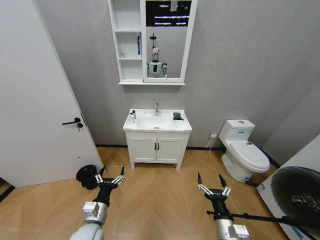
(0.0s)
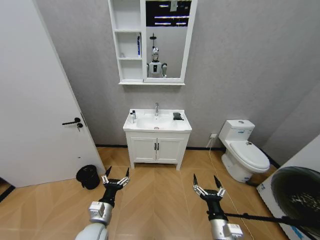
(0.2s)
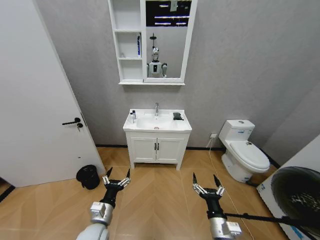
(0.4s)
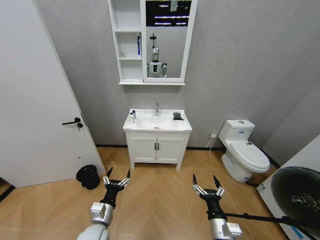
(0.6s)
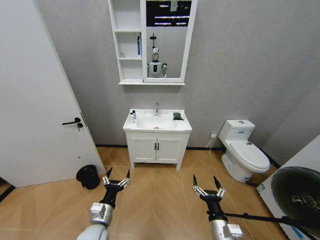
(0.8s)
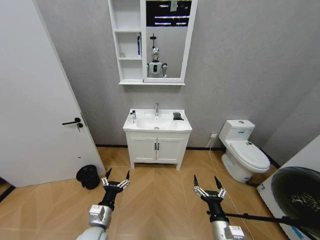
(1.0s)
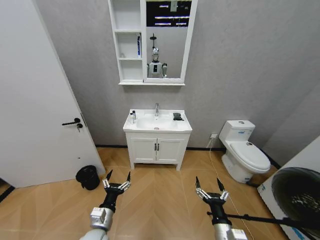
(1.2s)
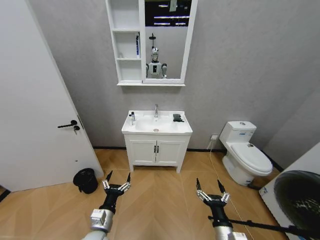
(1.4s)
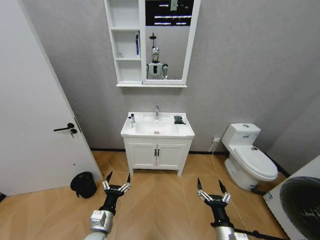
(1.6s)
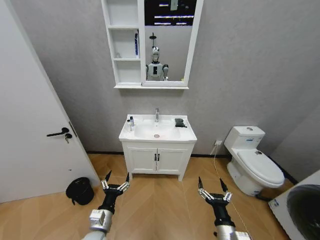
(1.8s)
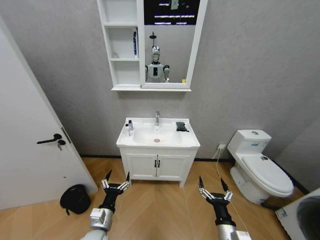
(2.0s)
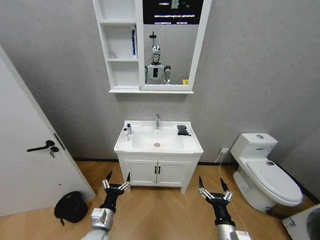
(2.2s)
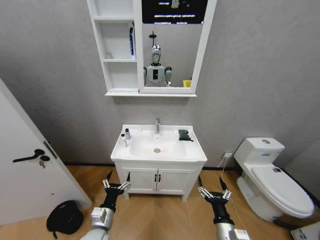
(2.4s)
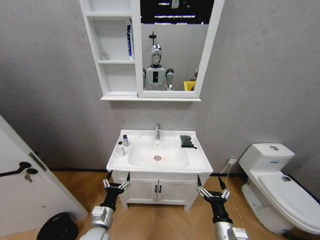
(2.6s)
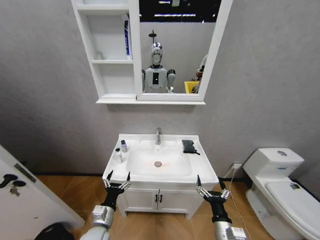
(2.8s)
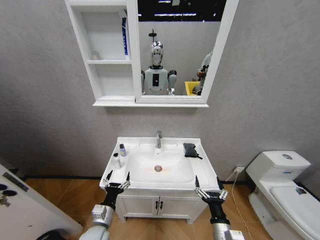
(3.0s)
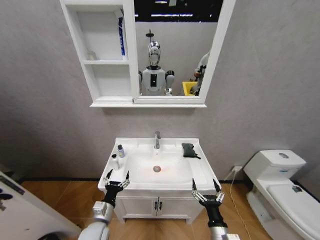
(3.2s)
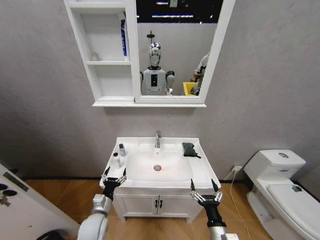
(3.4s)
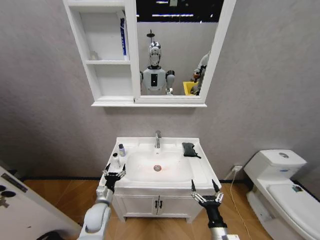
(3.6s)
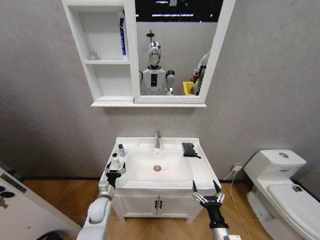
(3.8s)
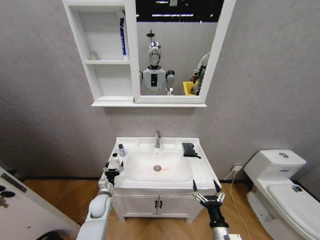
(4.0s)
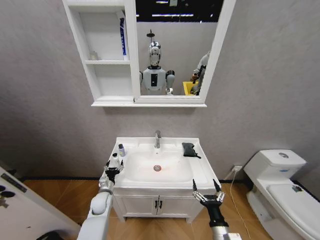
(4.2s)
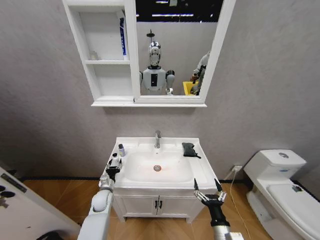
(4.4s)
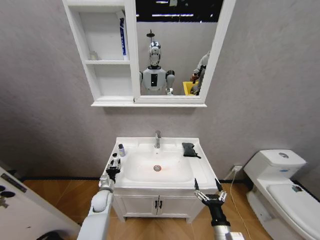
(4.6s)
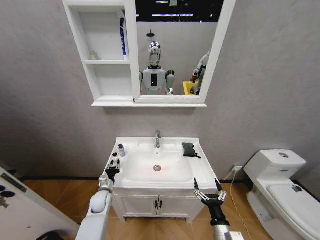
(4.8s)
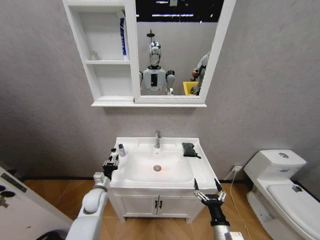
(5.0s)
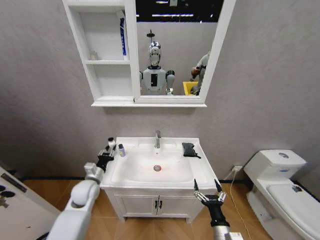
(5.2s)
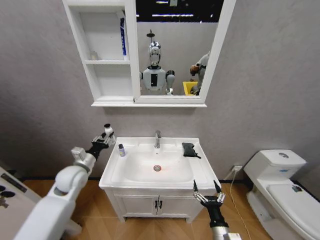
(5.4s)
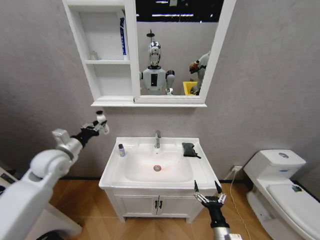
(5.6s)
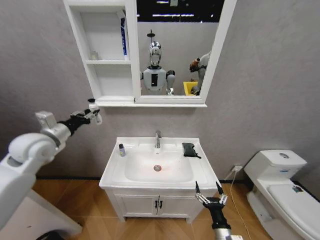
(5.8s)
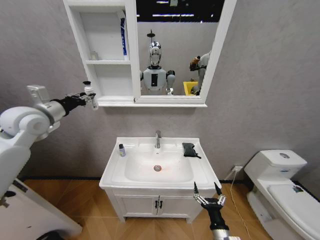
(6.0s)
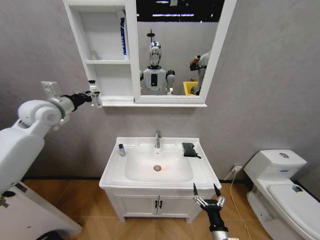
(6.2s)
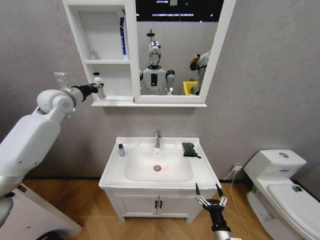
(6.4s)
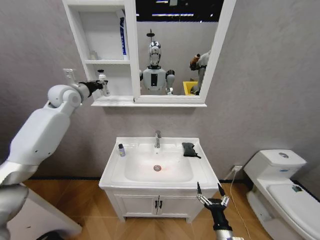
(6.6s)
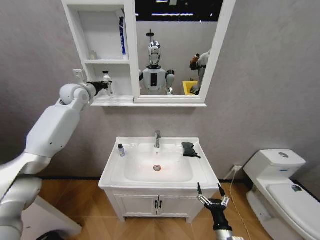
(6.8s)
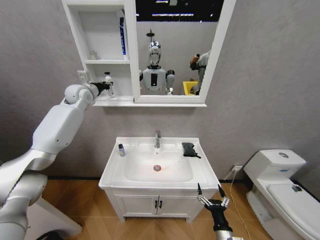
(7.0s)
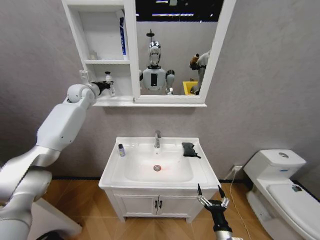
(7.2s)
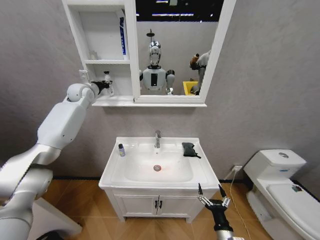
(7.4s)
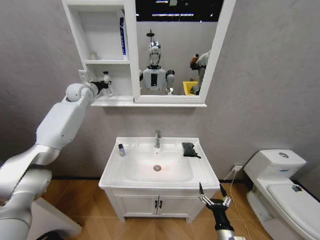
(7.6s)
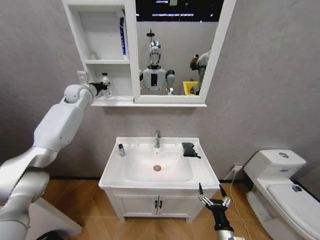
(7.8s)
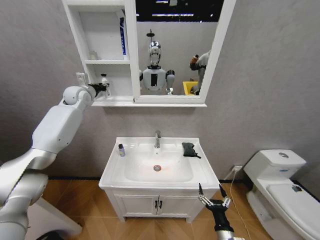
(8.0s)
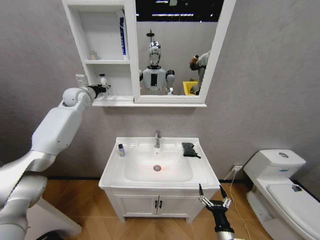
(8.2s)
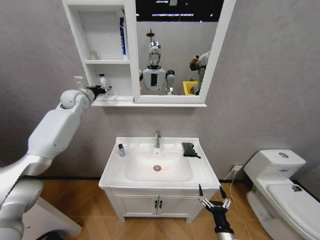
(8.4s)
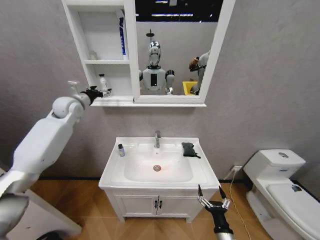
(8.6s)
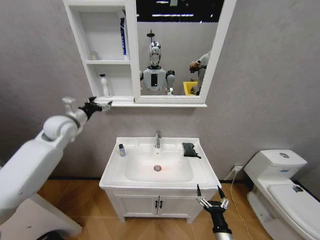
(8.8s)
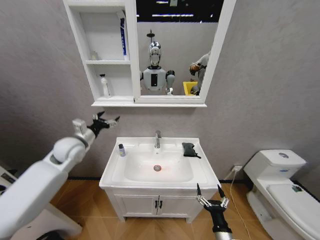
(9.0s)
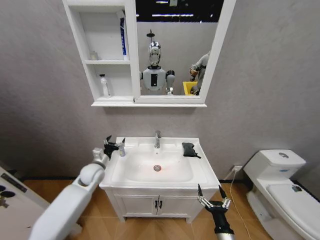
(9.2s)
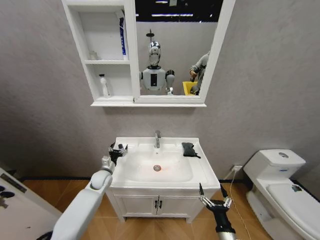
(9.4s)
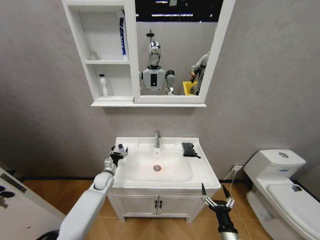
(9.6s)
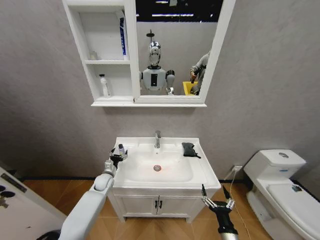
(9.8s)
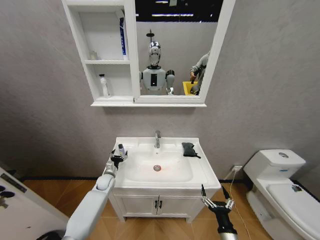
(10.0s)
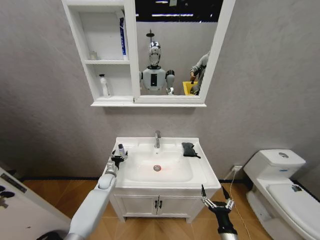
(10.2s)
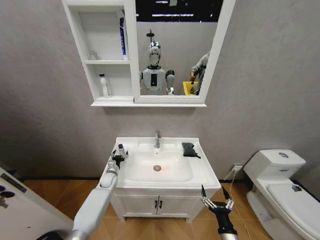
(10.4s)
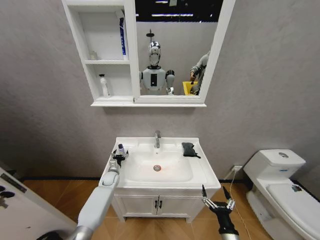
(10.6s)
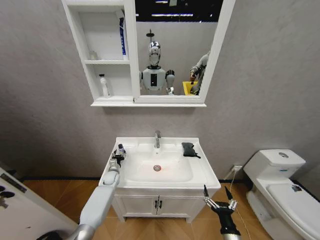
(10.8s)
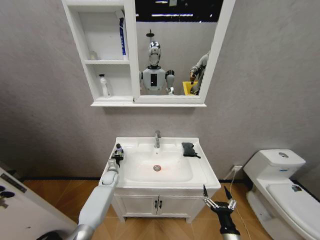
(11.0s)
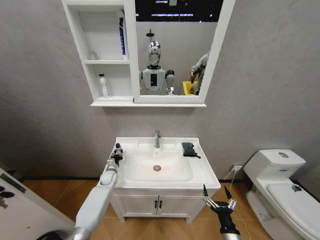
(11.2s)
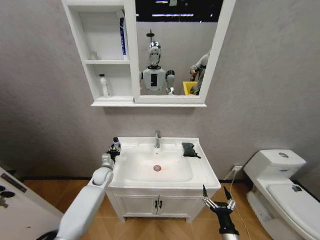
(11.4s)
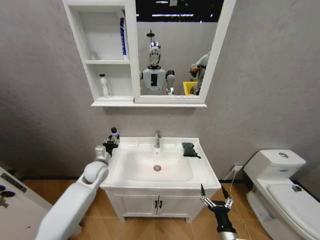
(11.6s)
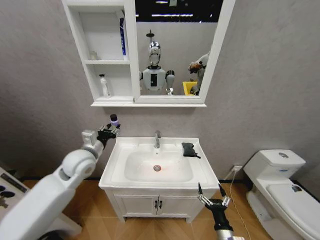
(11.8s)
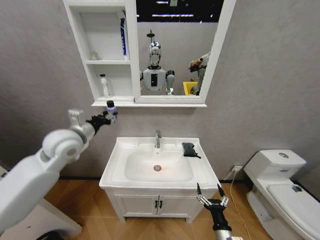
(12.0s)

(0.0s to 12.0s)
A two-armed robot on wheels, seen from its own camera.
Task of the whole recording: Move facial cleanser and shampoo from washbasin to cabinet, then wipe washbasin with towel.
3.0s - 4.4s: The left gripper travels forward by approximately 15 cm.
4.4s - 6.0s: The left gripper travels upward by approximately 40 cm, and closes.
6.0s - 7.6s: The left gripper goes some 20 cm forward.
7.6s - 9.0s: The left gripper moves backward and downward, approximately 25 cm, and opens its fingers.
9.0s - 10.4s: The left gripper goes approximately 30 cm downward.
10.4s - 12.0s: The left gripper goes about 40 cm upward, and closes up.

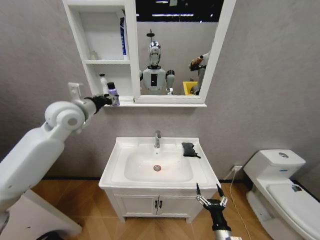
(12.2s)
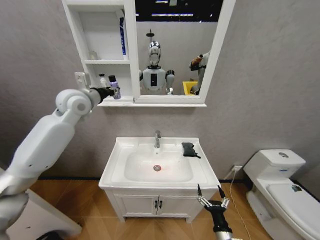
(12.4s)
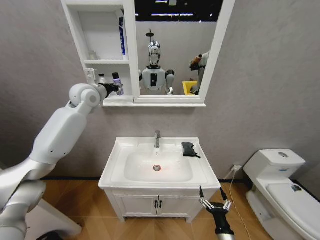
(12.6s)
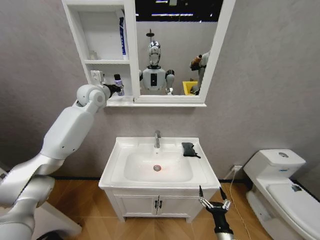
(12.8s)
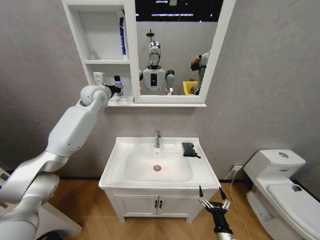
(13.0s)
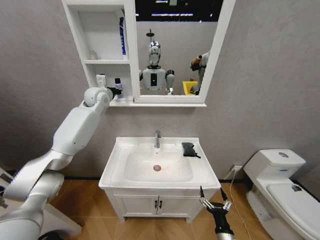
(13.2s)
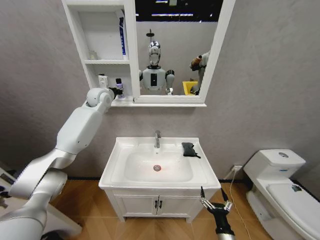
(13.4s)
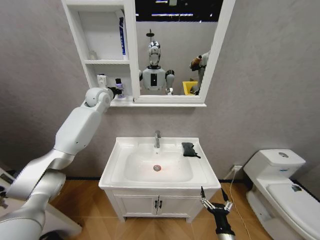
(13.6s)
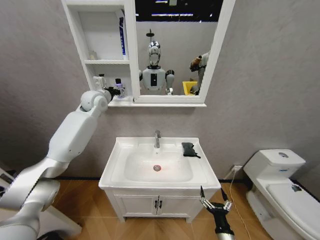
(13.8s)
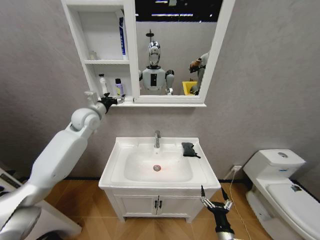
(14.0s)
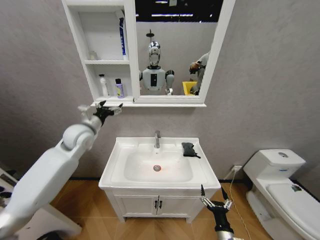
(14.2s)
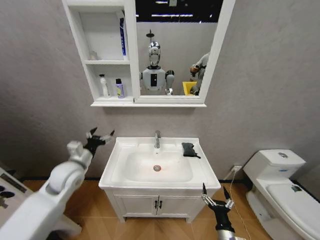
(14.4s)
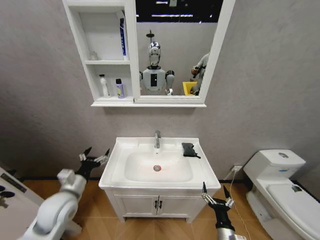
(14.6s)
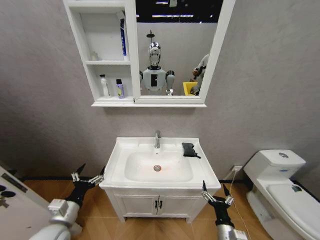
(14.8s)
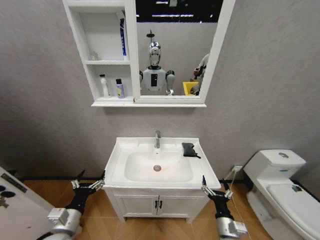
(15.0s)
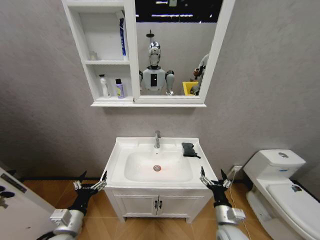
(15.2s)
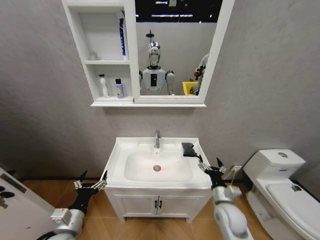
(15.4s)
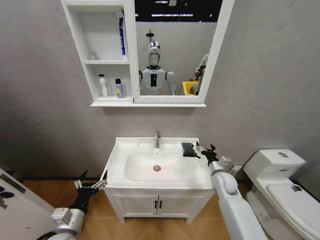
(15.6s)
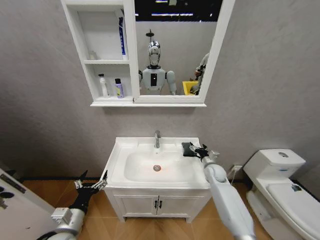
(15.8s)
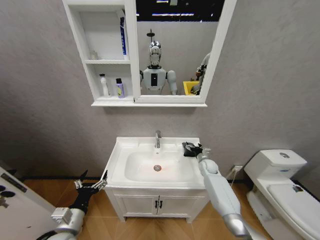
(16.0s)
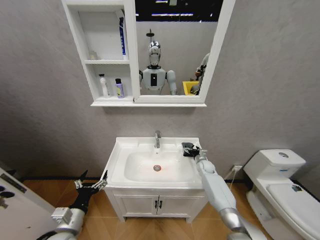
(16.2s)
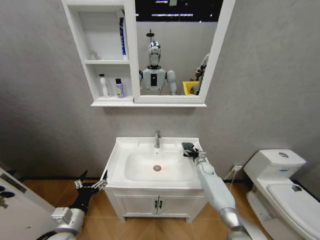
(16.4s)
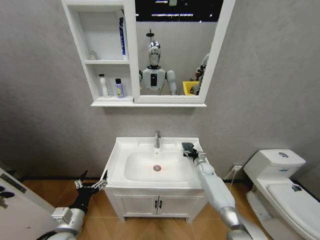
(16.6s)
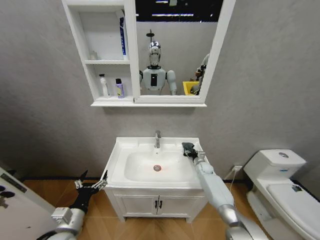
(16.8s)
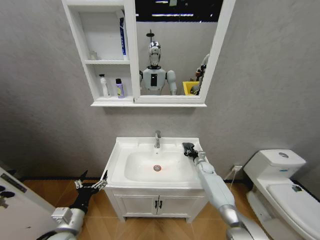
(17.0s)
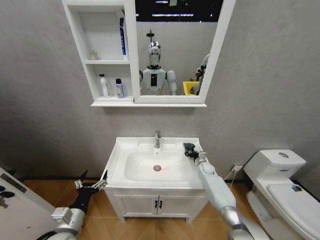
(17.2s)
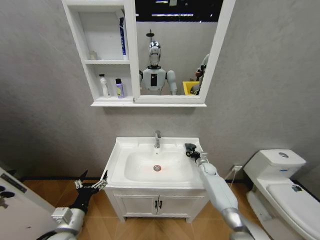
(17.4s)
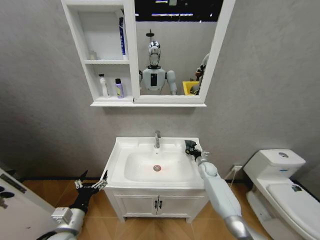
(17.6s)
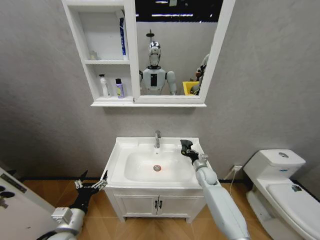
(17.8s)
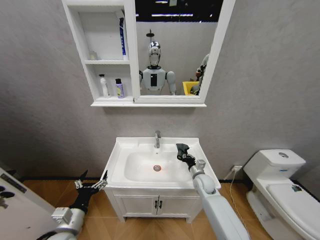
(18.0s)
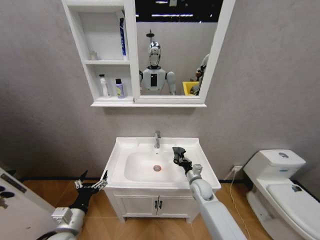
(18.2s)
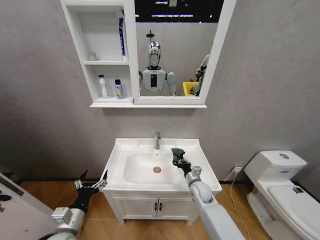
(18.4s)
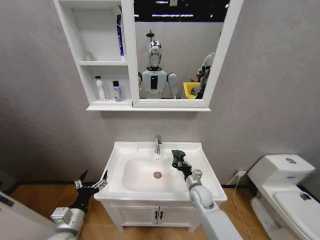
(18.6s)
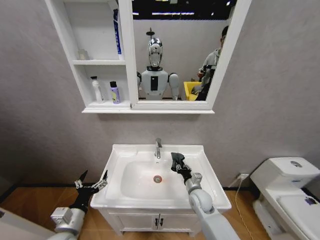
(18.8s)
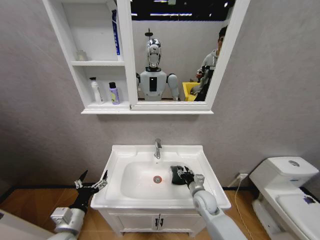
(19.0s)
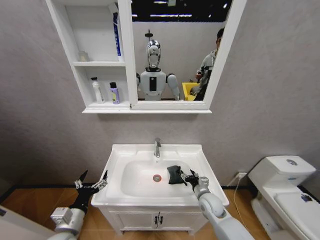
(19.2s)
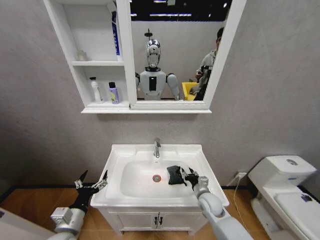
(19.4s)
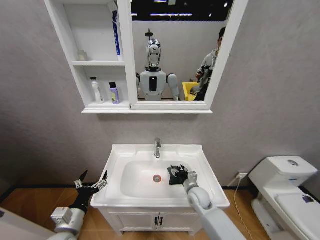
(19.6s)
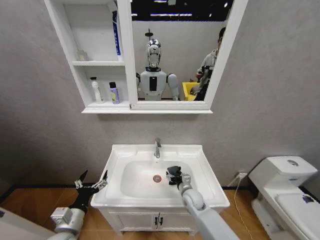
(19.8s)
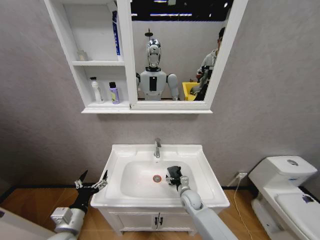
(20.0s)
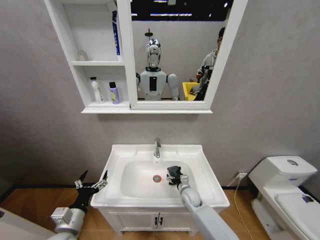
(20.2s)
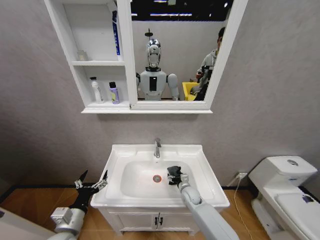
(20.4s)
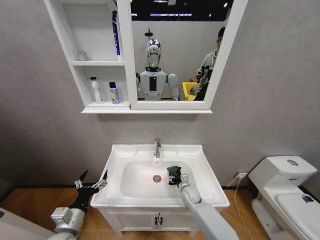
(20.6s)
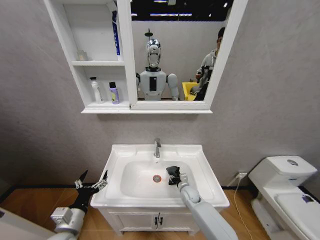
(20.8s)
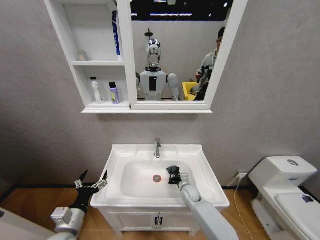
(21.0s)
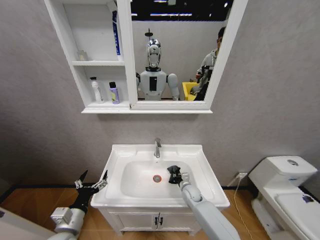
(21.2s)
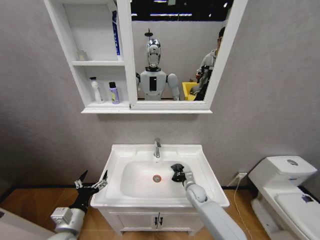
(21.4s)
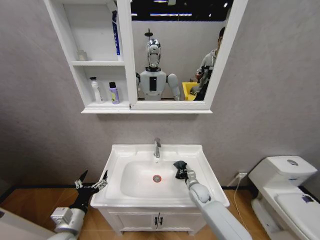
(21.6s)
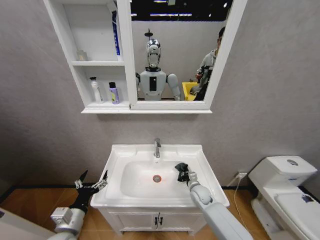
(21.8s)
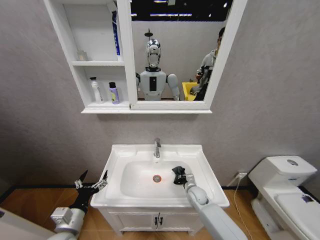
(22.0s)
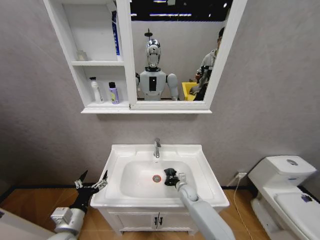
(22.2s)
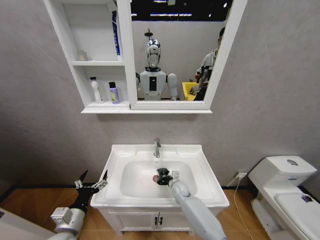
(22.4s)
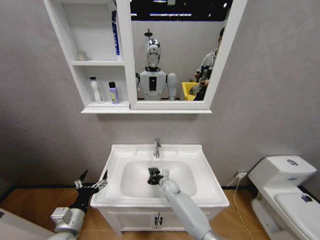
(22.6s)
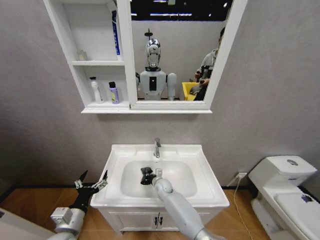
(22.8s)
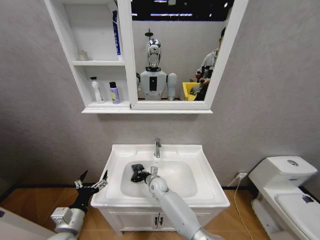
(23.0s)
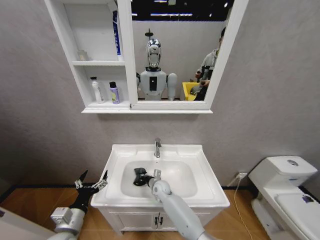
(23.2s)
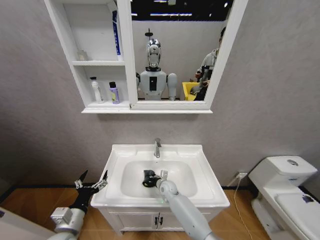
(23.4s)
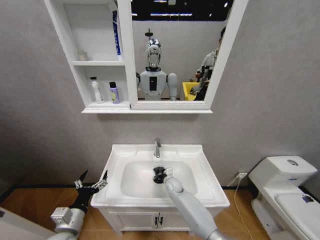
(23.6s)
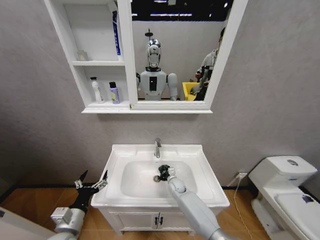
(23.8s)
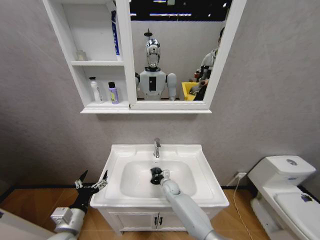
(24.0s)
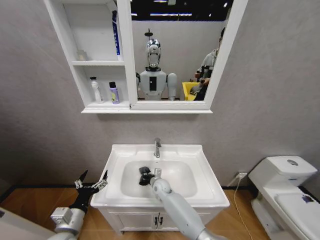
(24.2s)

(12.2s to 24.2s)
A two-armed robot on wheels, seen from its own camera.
Task of the whole recording: Move facial cleanser and shampoo from washbasin to cabinet, then wipe washbasin with towel.
12.2s - 13.8s: The left gripper moves forward, about 15 cm, and opens up.
13.8s - 15.2s: The left gripper travels backward and downward by some 50 cm. Meanwhile the right gripper shifts about 10 cm upward and forward.
15.2s - 16.6s: The right gripper shifts roughly 30 cm forward.
16.6s - 18.2s: The right gripper shifts roughly 20 cm backward and to the left, and closes up.
18.2s - 19.8s: The right gripper moves some 5 cm, and opens.
19.8s - 21.2s: The right gripper changes place by about 5 cm, and closes its fingers.
21.2s - 22.6s: The right gripper travels to the left by approximately 10 cm.
22.6s - 24.2s: The right gripper moves left and right over approximately 10 cm, changing direction 2 times.
